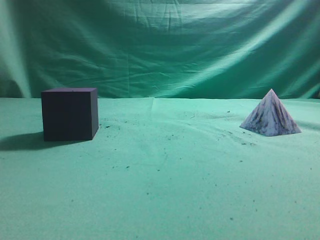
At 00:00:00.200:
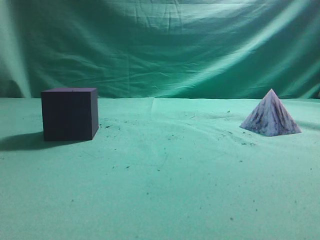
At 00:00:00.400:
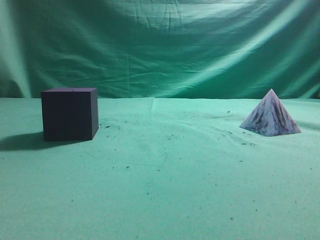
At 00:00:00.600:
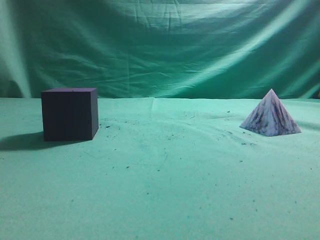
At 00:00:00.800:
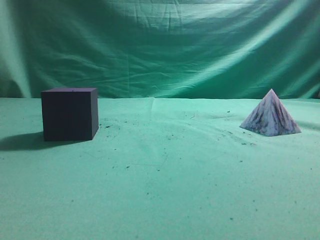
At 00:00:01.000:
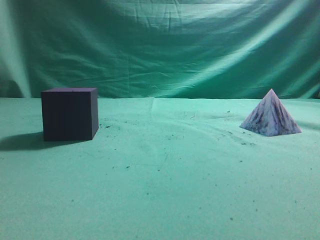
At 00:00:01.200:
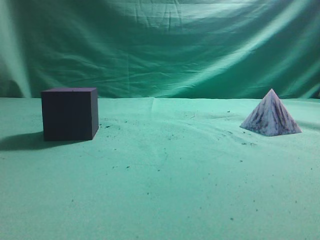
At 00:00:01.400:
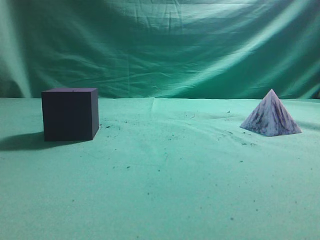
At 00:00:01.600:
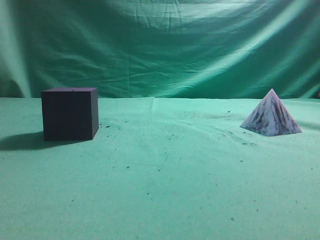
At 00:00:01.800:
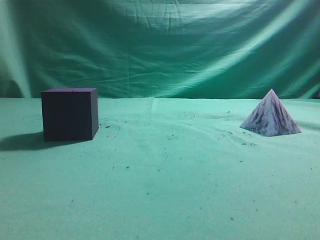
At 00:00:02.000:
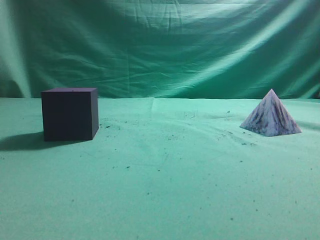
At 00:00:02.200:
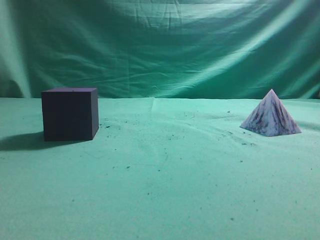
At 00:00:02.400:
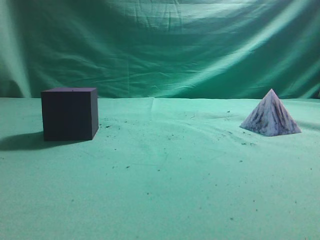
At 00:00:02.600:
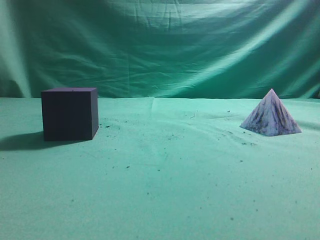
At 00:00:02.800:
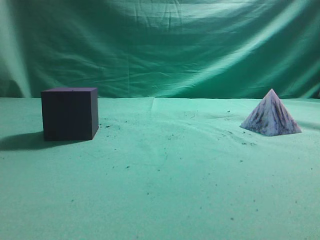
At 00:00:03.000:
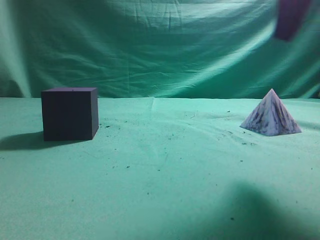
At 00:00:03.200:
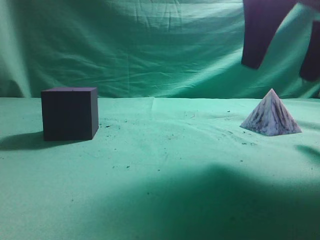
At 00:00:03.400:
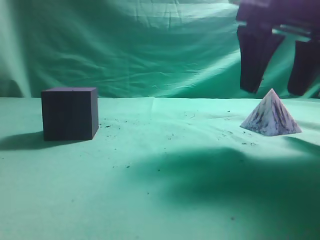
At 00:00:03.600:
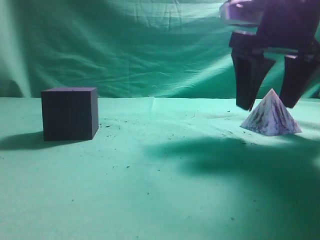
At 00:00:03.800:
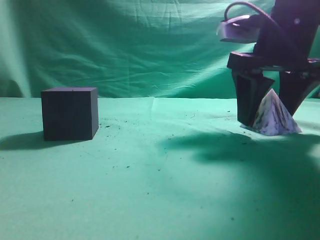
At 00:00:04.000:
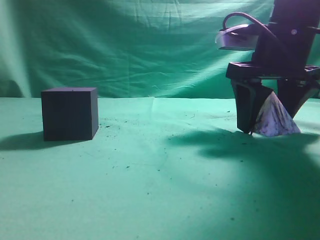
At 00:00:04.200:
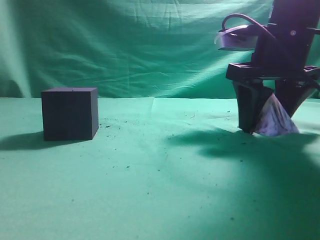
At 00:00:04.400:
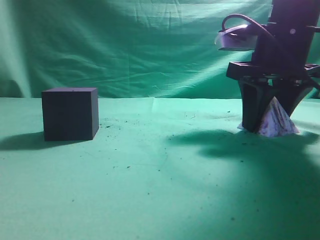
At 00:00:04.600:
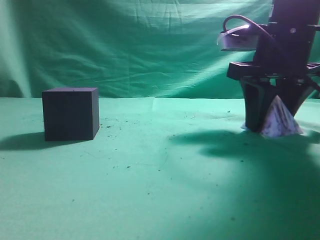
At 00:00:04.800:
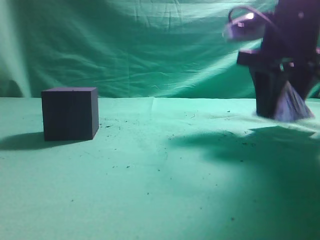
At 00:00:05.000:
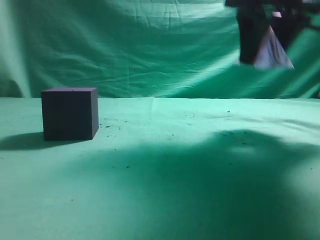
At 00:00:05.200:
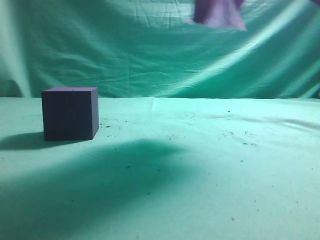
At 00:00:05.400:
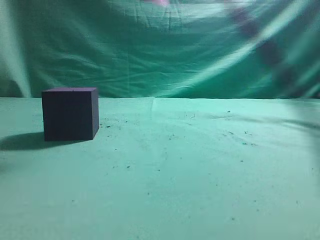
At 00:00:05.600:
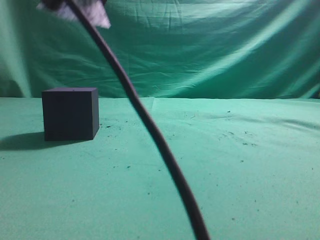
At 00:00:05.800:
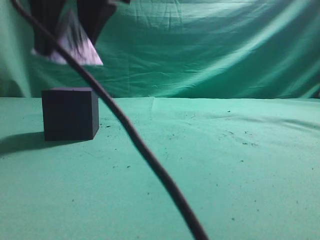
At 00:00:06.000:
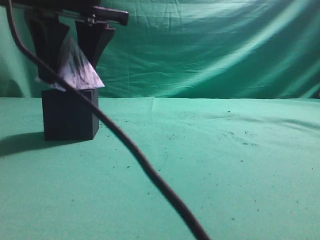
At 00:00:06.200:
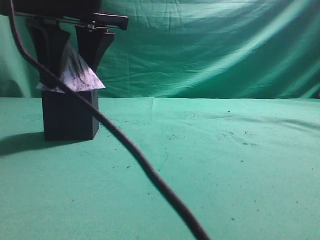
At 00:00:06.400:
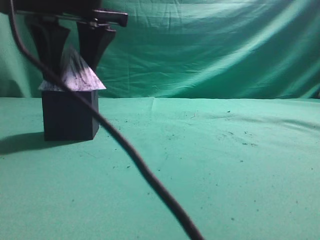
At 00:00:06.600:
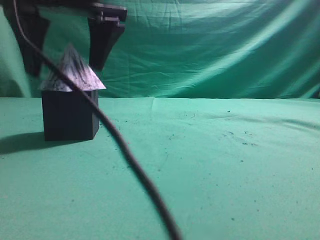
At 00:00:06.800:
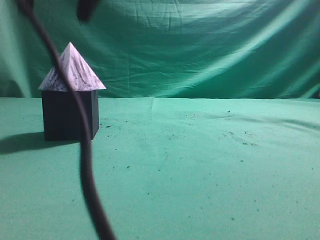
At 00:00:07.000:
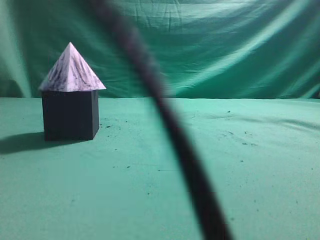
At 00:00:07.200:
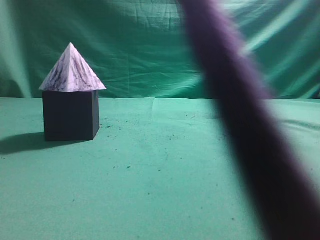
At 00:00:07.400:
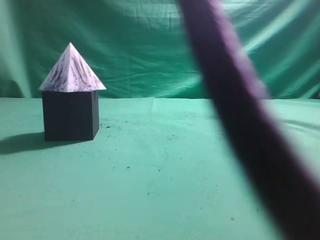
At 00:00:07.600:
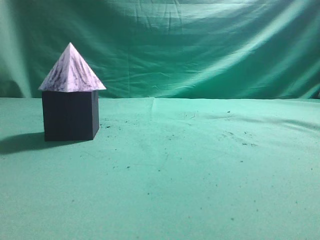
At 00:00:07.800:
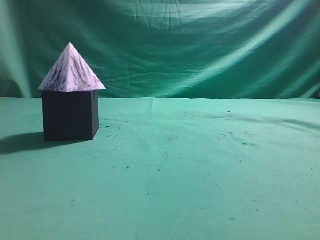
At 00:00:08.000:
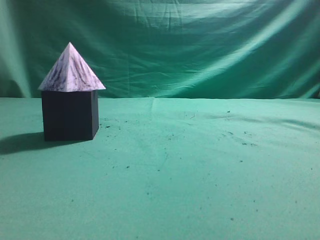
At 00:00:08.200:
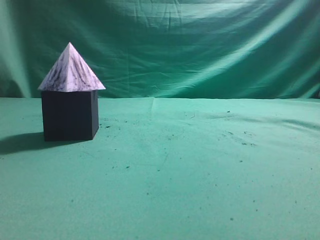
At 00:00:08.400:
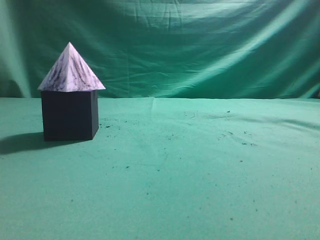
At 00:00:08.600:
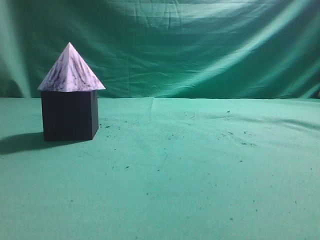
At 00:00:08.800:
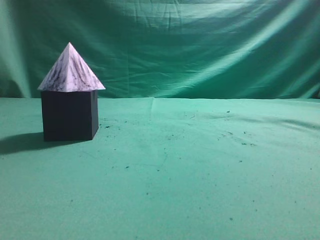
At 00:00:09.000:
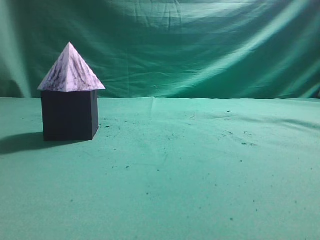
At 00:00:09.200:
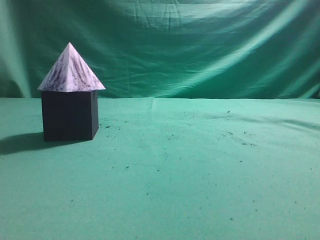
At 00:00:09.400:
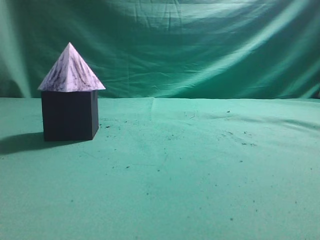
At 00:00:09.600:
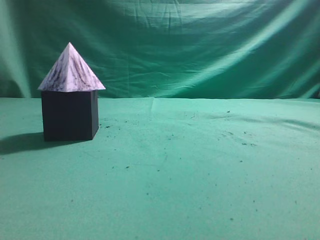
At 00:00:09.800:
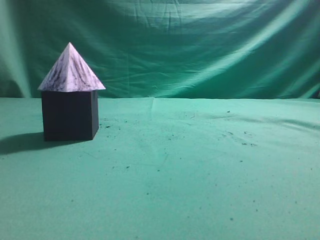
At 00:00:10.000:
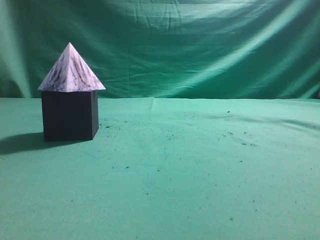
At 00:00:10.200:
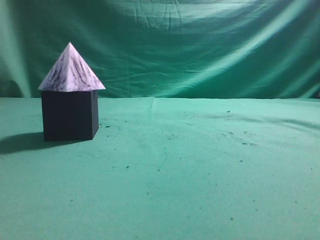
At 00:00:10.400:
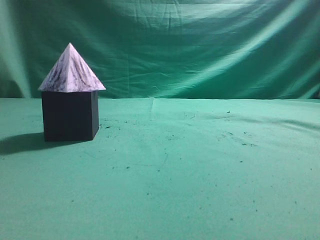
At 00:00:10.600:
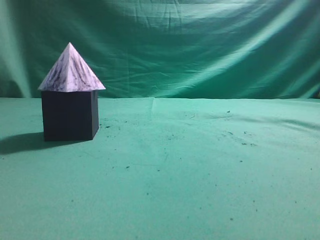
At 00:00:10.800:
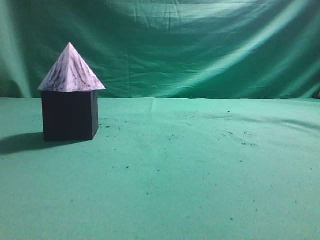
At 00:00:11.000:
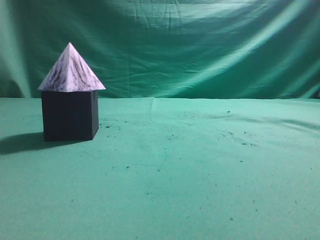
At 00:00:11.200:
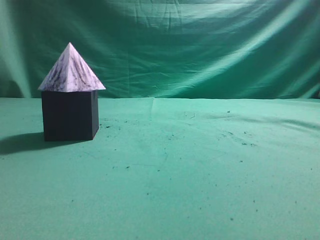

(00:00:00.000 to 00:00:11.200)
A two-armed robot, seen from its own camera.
Task of the whole recording: pick up the square pyramid from the table and place it on the cube block.
Step, 00:00:00.000 - 00:00:04.800: Grasp the triangular block.
Step, 00:00:05.000 - 00:00:06.600: Place the block onto the cube-shaped block.
00:00:01.600 - 00:00:03.200: The right gripper goes some 25 cm forward and to the left, and opens its fingers.
00:00:03.200 - 00:00:04.800: The right gripper goes about 10 cm forward and downward, and closes up.
00:00:04.800 - 00:00:06.400: The right gripper moves to the left, about 25 cm.
00:00:06.400 - 00:00:08.000: The right gripper travels to the right, upward and backward by roughly 30 cm, and closes up.

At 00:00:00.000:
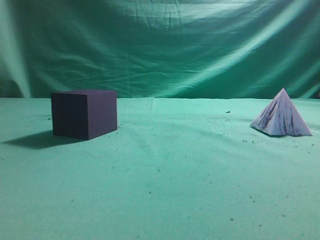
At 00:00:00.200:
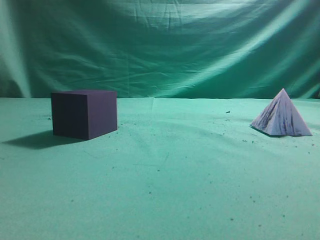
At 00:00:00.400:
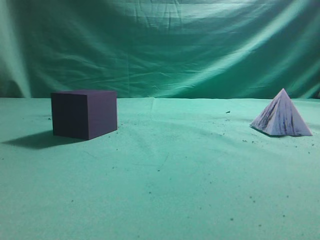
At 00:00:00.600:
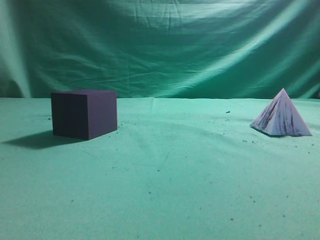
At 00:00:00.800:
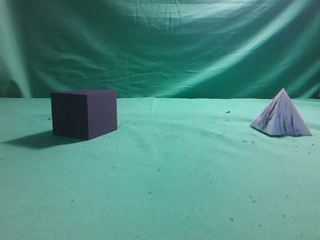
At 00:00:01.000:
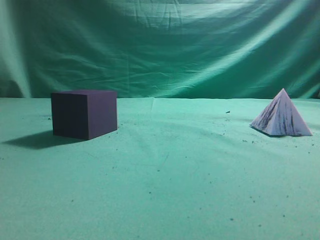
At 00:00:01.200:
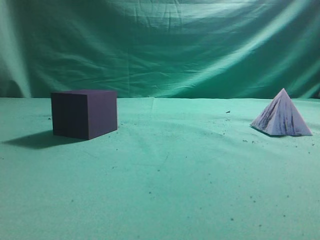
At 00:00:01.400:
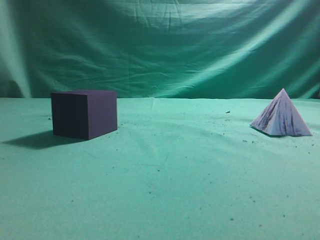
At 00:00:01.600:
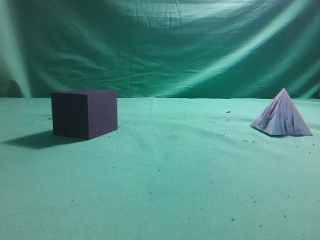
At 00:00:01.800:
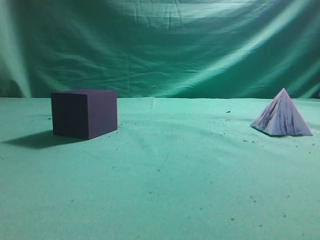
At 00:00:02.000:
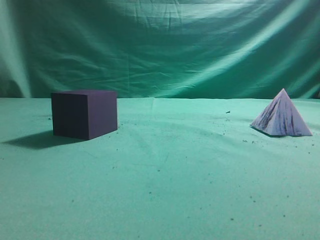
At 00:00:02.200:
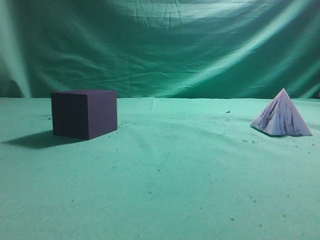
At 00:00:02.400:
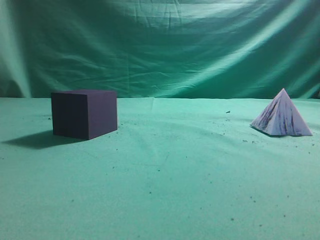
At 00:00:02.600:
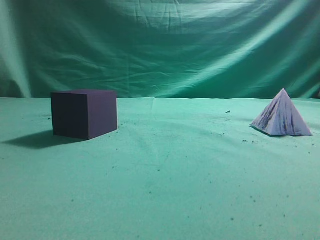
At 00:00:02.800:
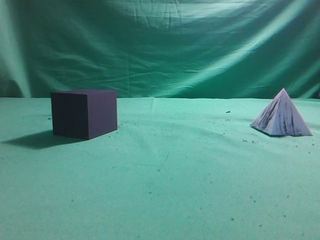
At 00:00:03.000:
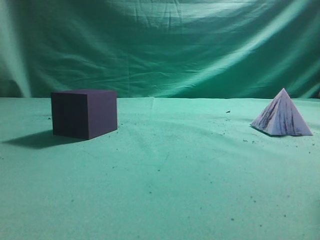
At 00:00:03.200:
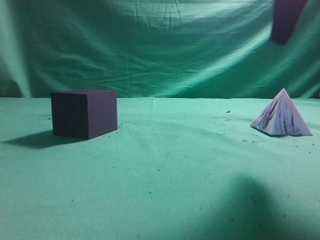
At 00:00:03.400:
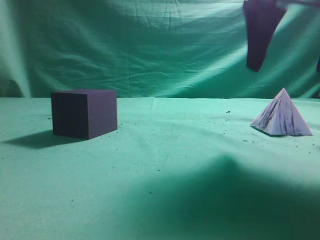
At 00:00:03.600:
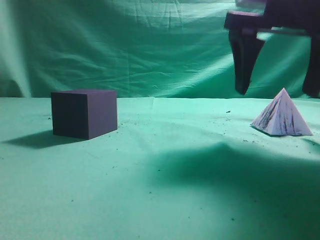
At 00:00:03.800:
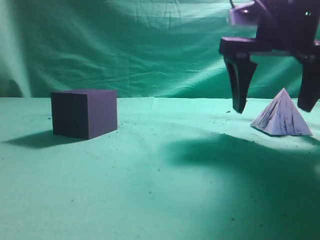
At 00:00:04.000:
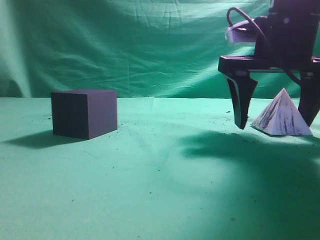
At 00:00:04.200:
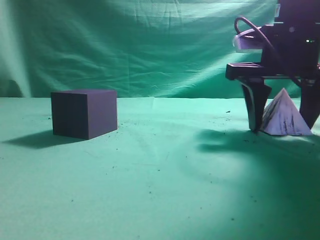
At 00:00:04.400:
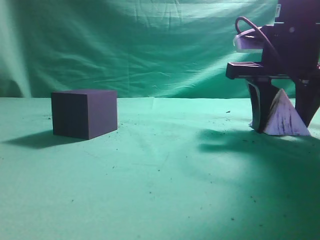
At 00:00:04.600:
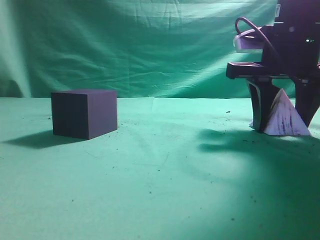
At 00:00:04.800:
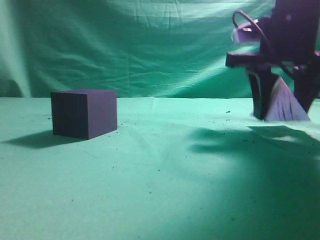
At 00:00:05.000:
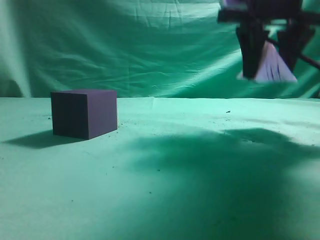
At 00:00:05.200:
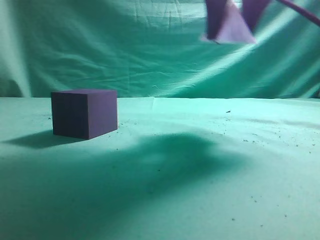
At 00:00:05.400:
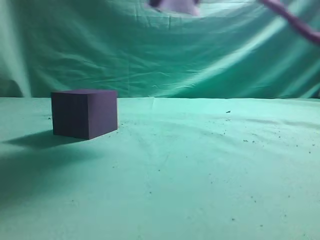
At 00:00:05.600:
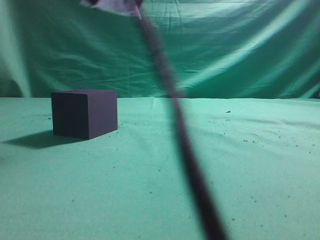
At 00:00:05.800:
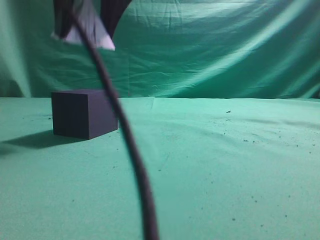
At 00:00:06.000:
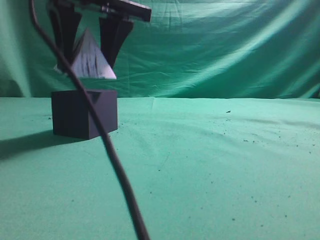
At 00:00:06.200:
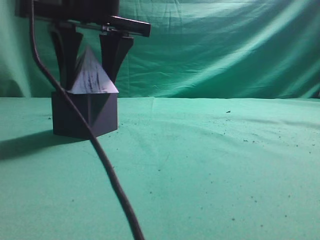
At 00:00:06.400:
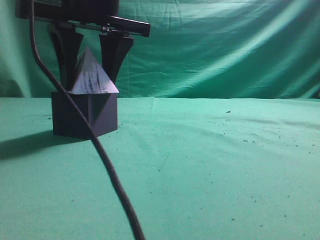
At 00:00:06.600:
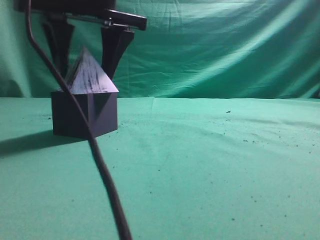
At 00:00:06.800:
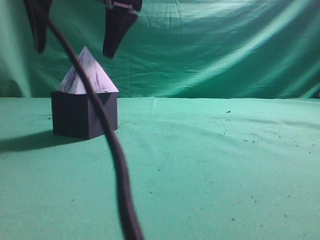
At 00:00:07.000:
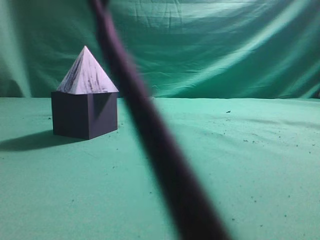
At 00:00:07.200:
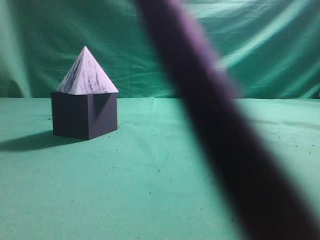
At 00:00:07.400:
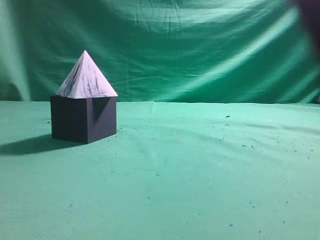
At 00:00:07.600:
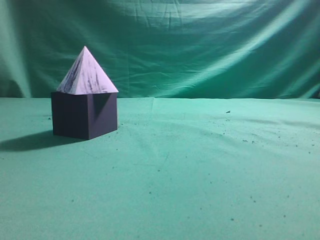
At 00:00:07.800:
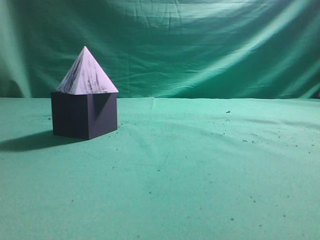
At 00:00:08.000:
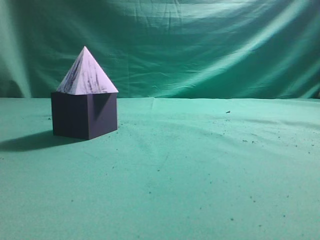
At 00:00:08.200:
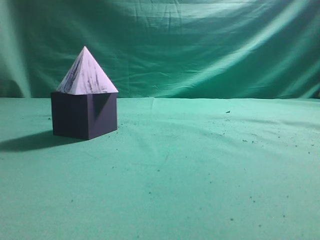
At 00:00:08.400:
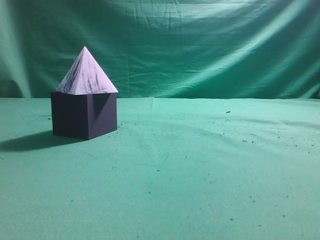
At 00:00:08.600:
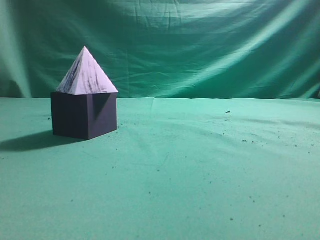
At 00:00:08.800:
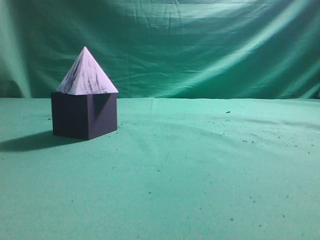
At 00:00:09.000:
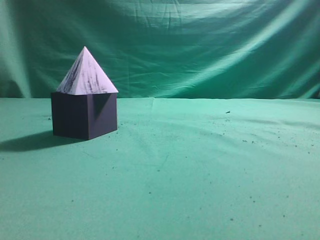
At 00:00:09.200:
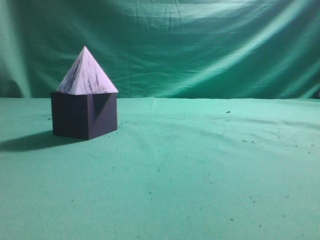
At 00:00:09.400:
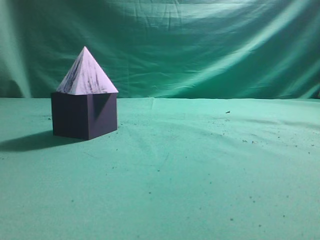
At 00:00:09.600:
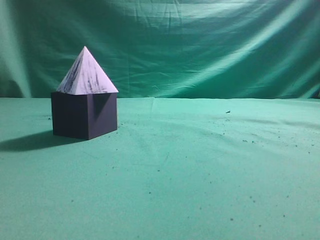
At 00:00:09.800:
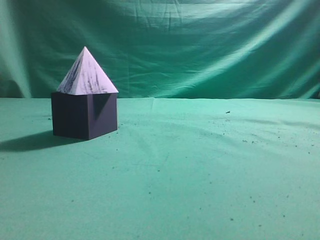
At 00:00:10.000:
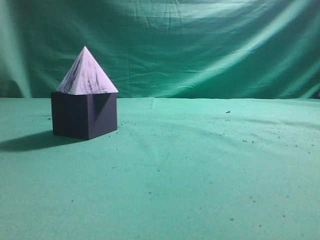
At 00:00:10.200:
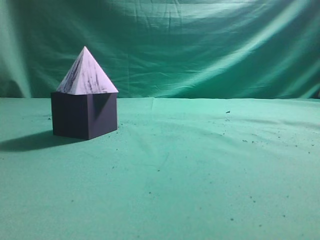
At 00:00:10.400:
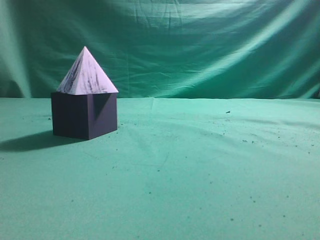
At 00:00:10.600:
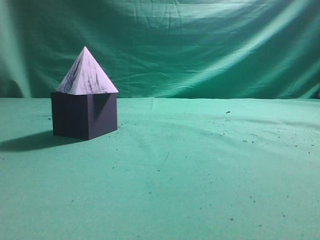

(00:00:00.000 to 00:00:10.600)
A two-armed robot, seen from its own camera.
Task of the whole recording: pick up the square pyramid from the table and place it on the cube block.
Step, 00:00:00.000 - 00:00:05.000: Grasp the triangular block.
Step, 00:00:05.200 - 00:00:06.800: Place the block onto the cube-shaped block.
00:00:03.000 - 00:00:04.600: The right gripper goes roughly 15 cm forward and downward, and opens and closes again.
00:00:04.600 - 00:00:06.000: The right gripper shifts some 25 cm to the left.
00:00:06.000 - 00:00:07.600: The right gripper moves upward, to the right and backward, about 30 cm, and closes up.
